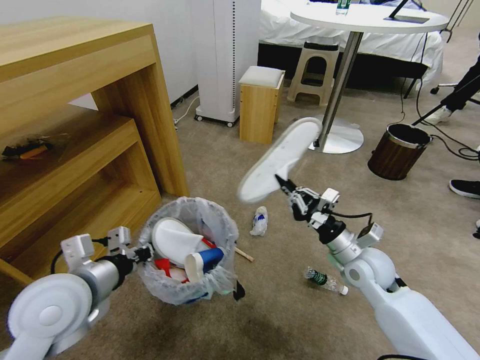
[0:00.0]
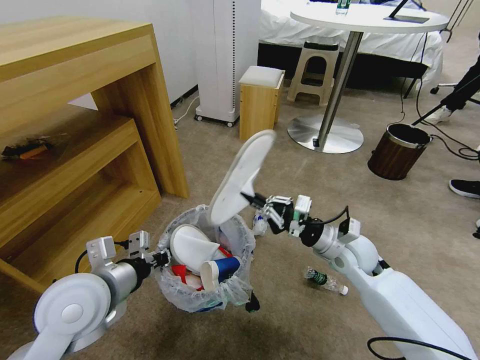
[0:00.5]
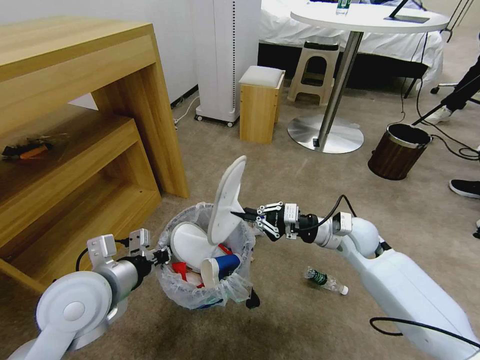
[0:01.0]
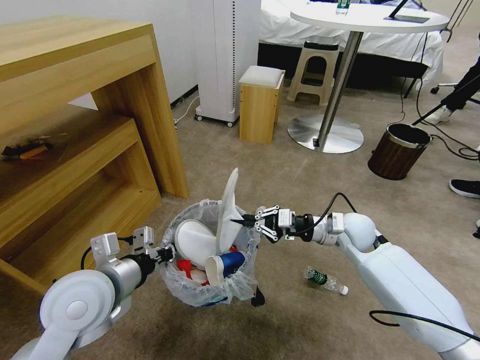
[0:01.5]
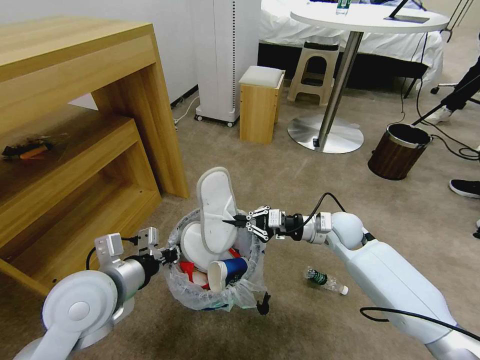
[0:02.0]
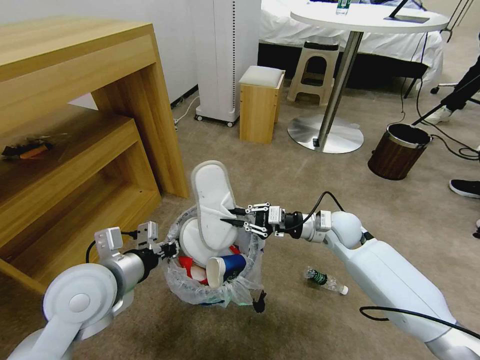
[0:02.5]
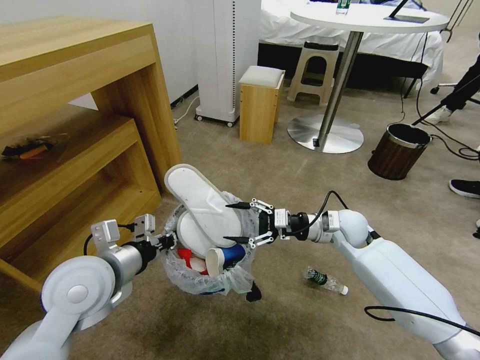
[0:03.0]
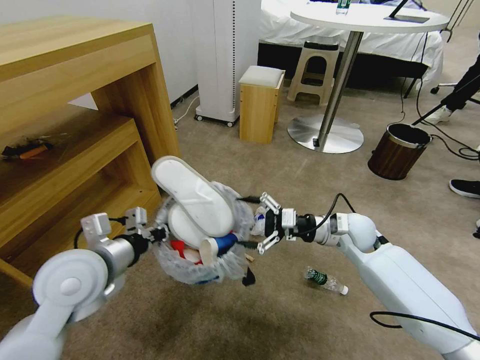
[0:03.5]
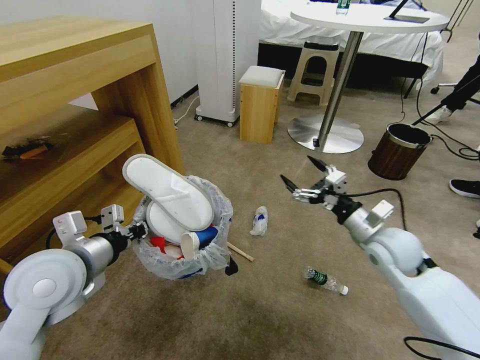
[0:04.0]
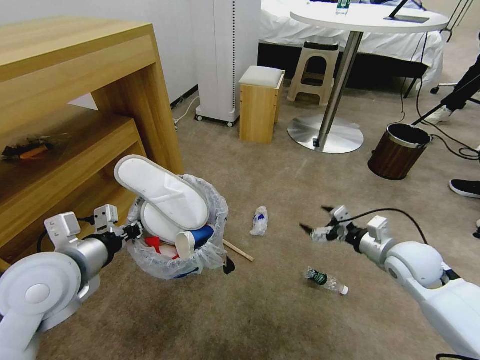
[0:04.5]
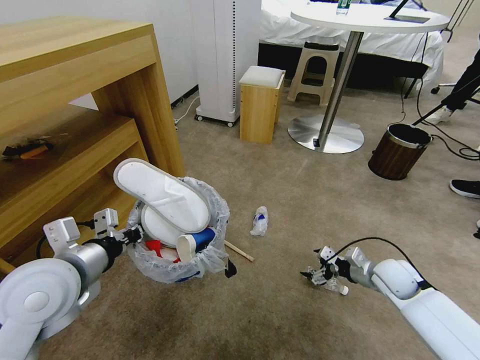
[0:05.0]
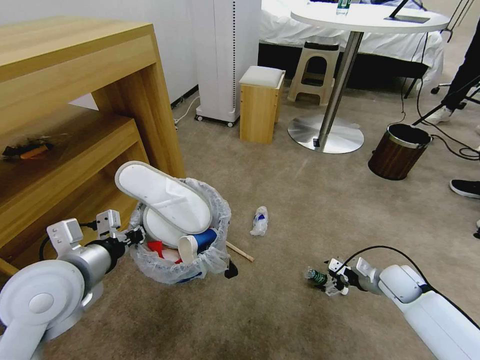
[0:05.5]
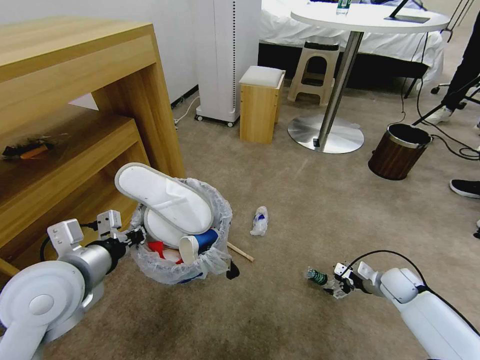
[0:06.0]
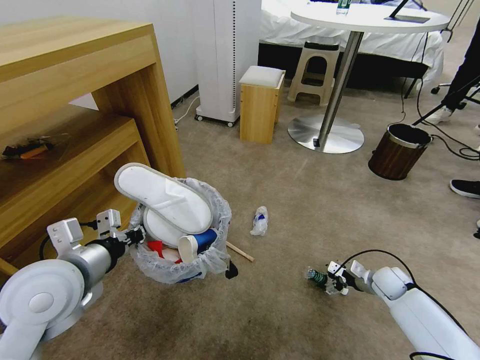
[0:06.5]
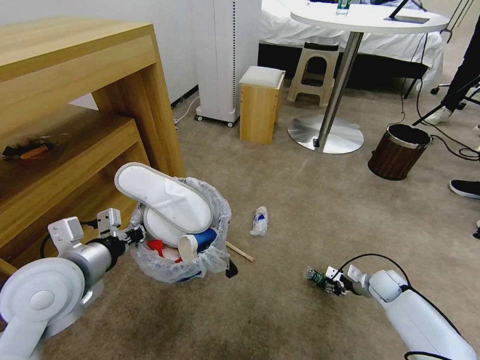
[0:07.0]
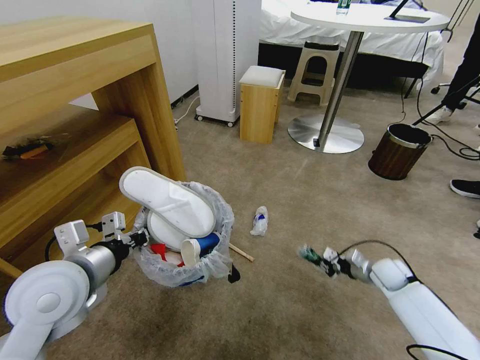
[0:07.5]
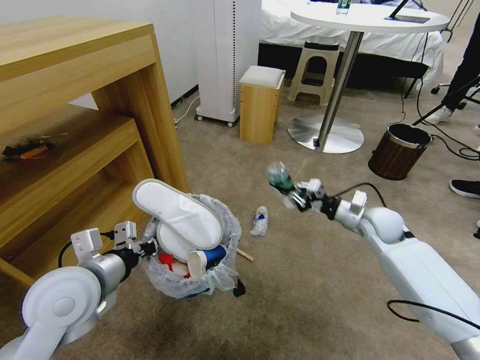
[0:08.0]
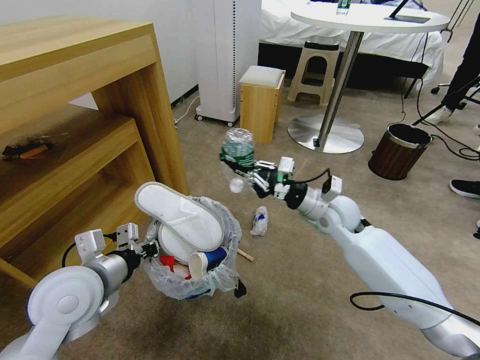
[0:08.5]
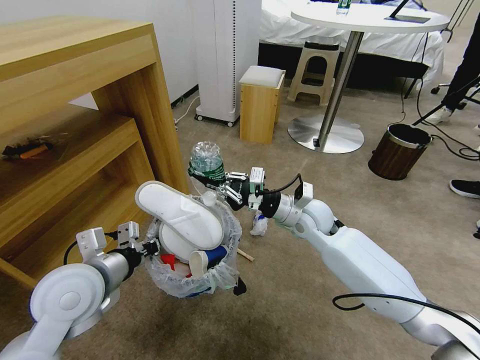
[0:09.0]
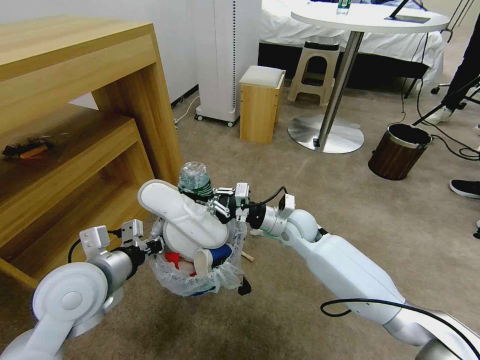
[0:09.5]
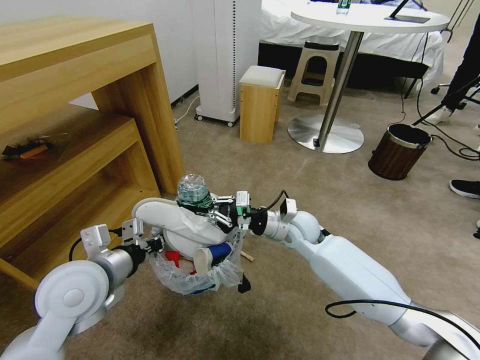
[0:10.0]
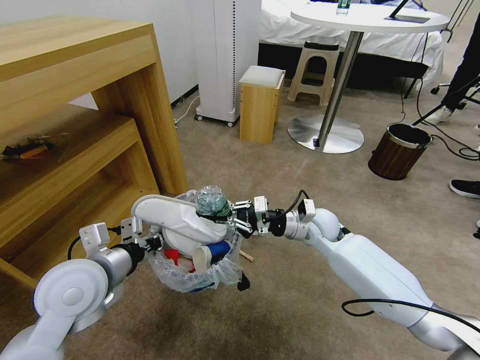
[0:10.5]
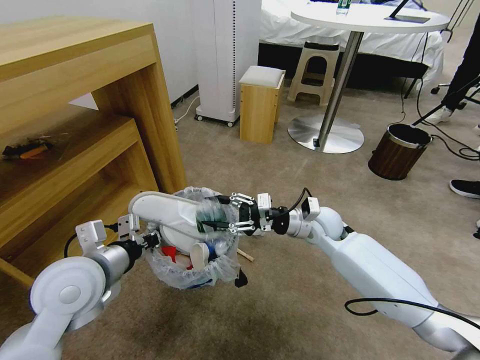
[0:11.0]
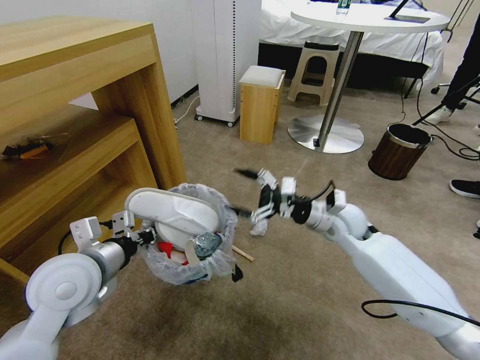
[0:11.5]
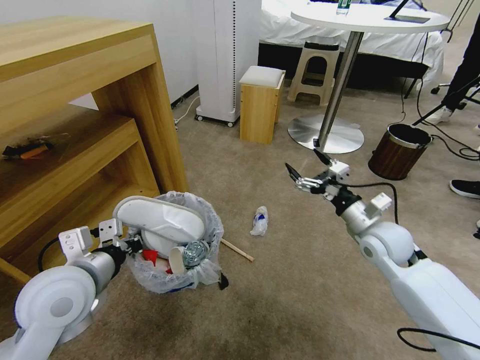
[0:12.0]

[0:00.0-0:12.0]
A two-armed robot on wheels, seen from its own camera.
Task of the whole recording: Pick up the trash bin and place the garbage on the floor into it.
0:00.0 to 0:02.0: The right gripper goes about 10 cm forward.
0:02.0 to 0:04.0: The left gripper moves some 5 cm. The right gripper travels backward and to the right by some 10 cm, and opens.
0:04.0 to 0:06.0: The right gripper shifts some 25 cm downward and to the right.
0:06.0 to 0:08.0: The right gripper goes some 20 cm upward, to the left and forward, and closes its fingers.
0:08.0 to 0:10.0: The right gripper shifts some 20 cm to the left.
0:10.0 to 0:12.0: The right gripper is displaced to the right by roughly 15 cm, and opens its fingers.

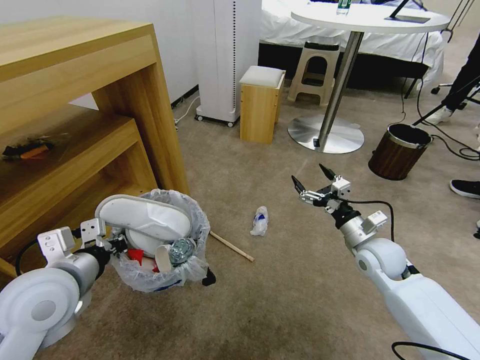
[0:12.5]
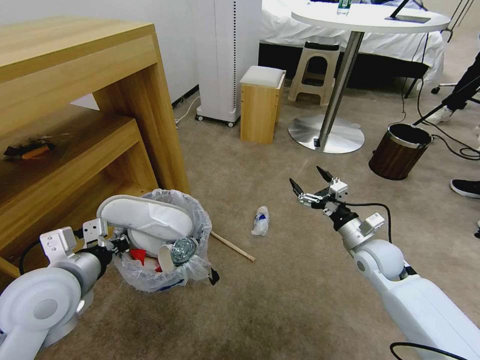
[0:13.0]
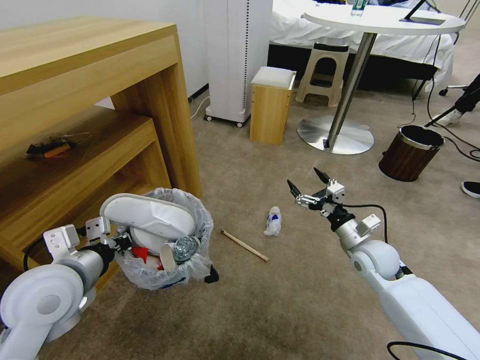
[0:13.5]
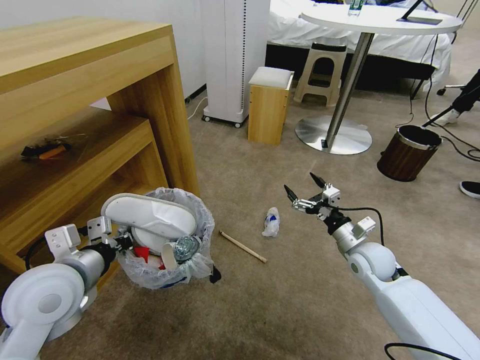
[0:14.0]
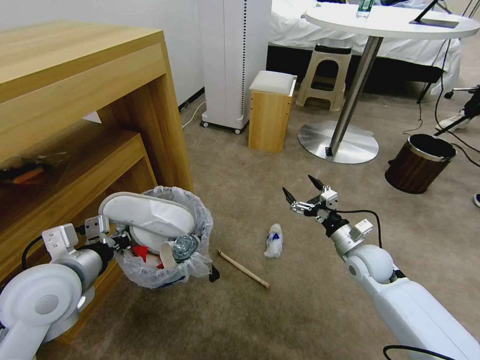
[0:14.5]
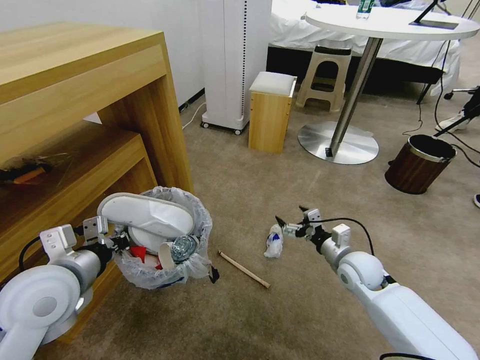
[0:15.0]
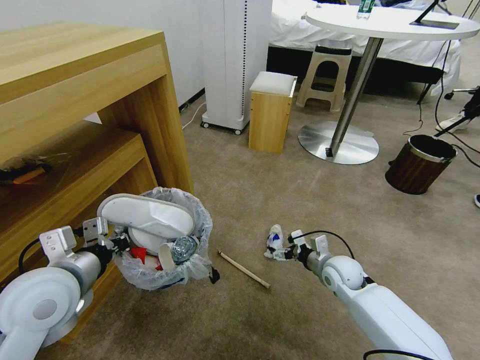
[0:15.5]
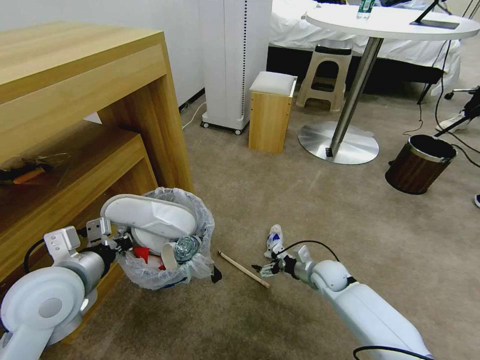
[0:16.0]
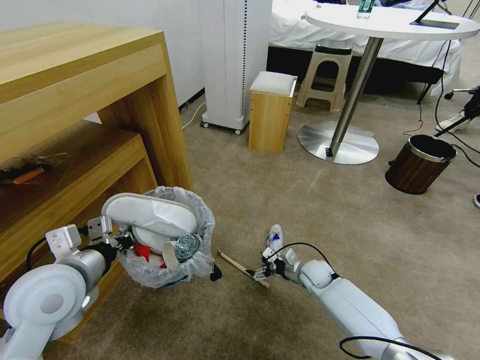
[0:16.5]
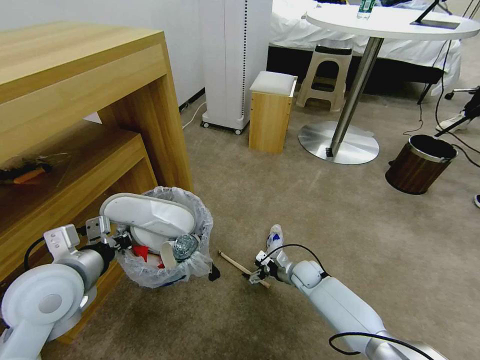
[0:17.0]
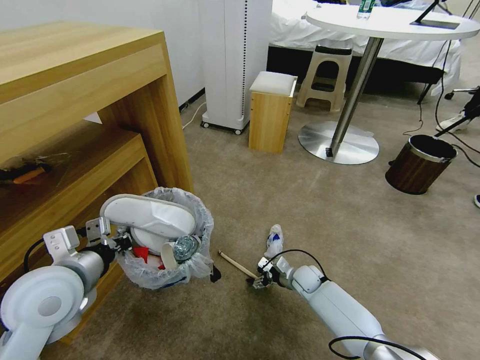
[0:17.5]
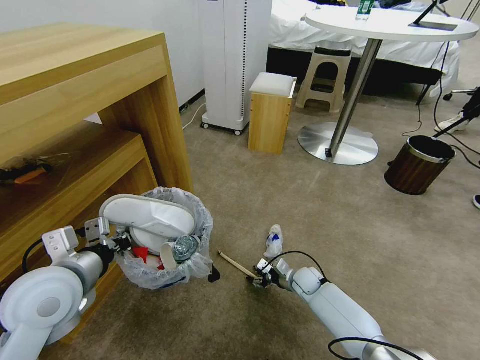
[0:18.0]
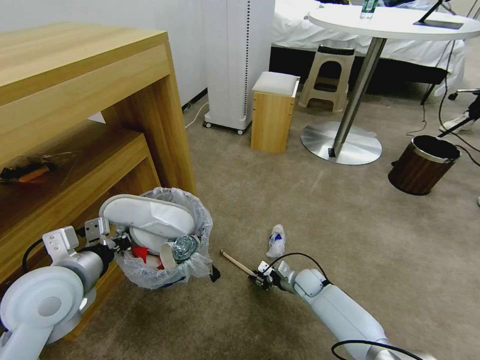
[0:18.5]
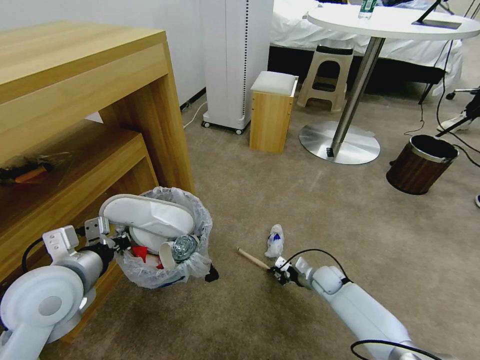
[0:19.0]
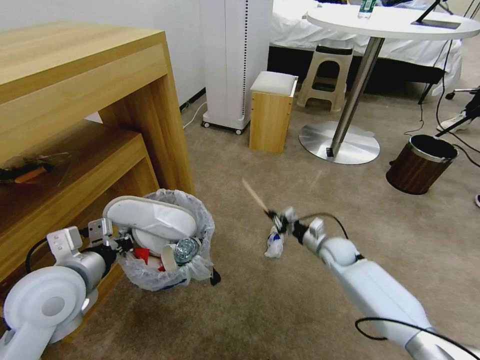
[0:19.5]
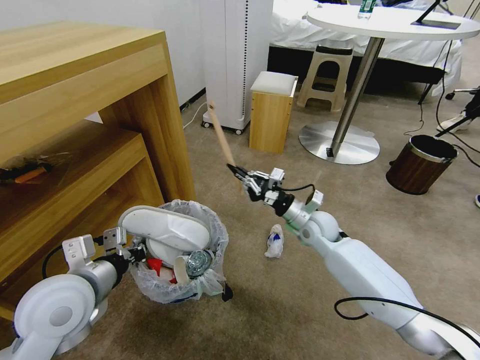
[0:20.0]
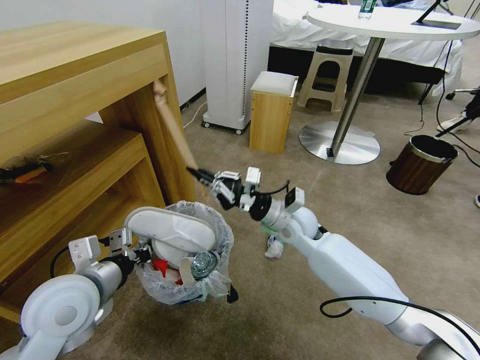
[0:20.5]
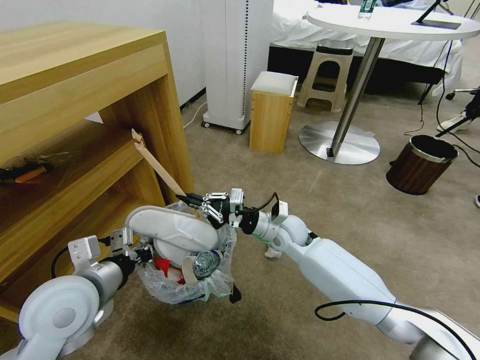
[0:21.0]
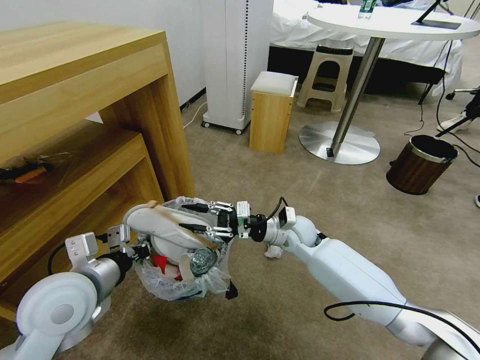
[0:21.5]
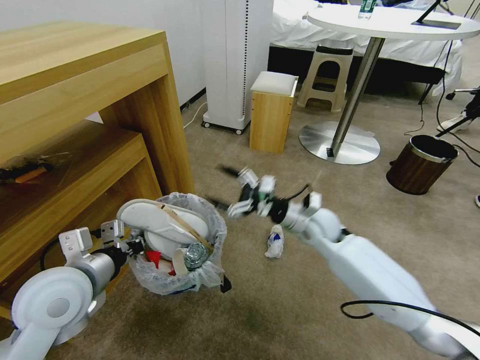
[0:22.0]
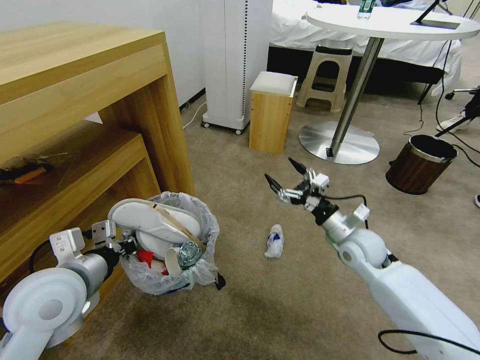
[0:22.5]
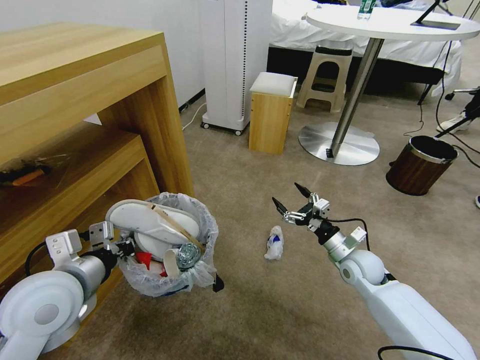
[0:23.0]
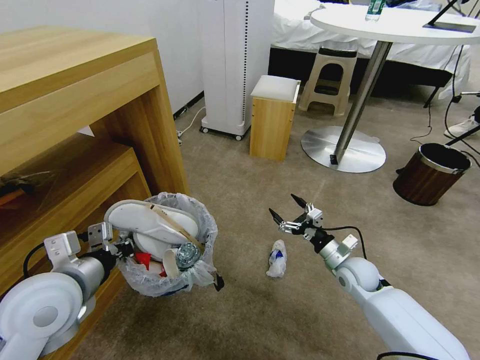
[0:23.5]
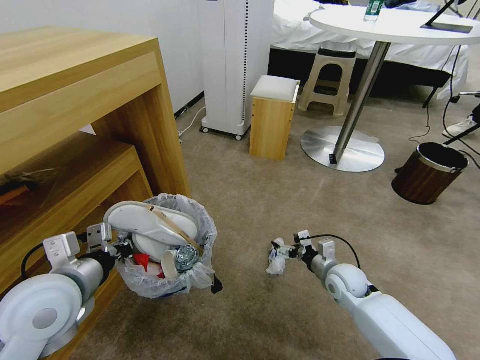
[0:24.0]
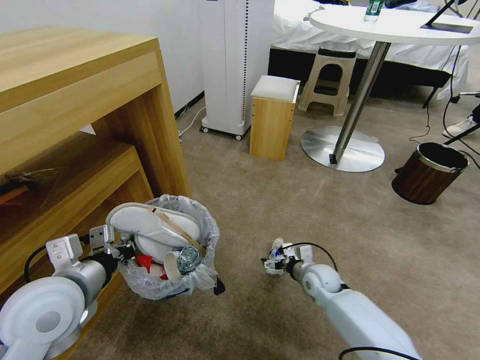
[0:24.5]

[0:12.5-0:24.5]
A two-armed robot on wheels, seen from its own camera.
Task of the whole recording: Pick up the trash bin and place the garbage on the floor into it.
0:14.5 to 0:16.5: The right gripper is displaced downward and to the left by about 15 cm.
0:16.5 to 0:18.5: The right gripper closes its fingers.
0:18.5 to 0:20.5: The right gripper is displaced upward by some 25 cm.
0:20.5 to 0:22.5: The right gripper is displaced to the right by roughly 15 cm, and opens up.
0:22.5 to 0:24.5: The right gripper travels downward by about 15 cm.

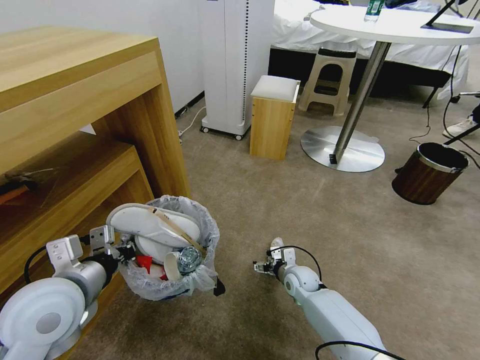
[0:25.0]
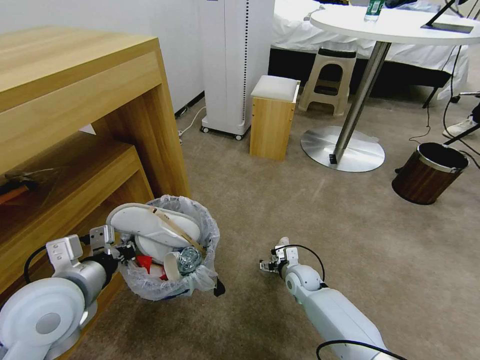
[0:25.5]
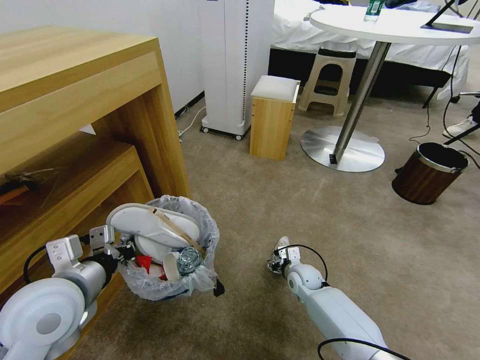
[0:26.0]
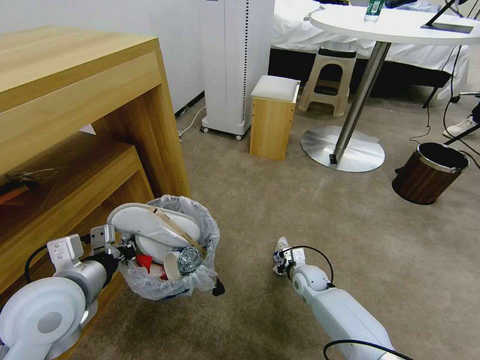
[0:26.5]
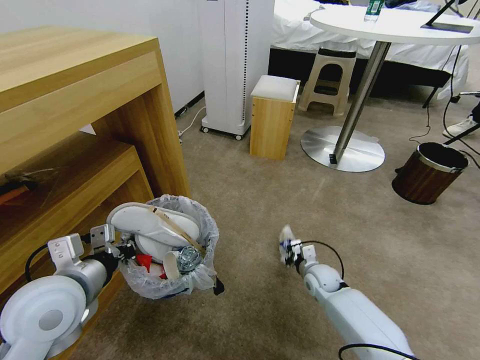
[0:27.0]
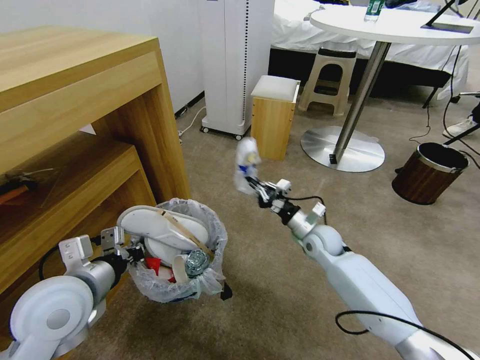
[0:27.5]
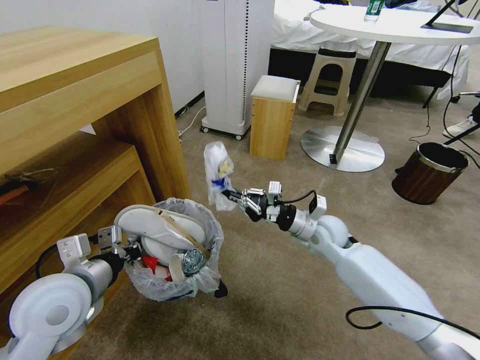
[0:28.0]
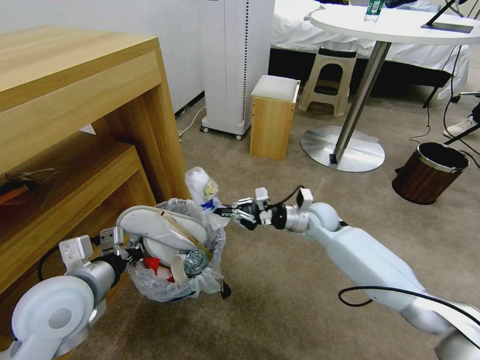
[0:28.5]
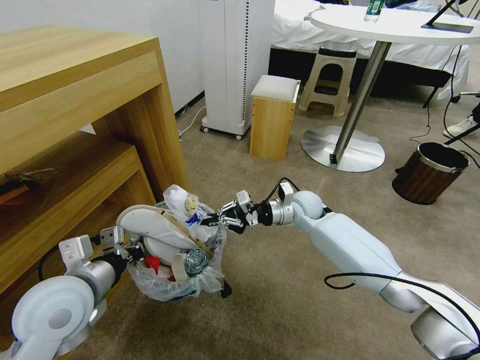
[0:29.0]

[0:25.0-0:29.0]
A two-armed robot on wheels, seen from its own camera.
Task of the whole recording: Pick up the trash bin and place the garbage on the floor into it.
0:25.0 to 0:27.0: The right gripper travels to the right by some 5 cm, and closes its fingers.
0:27.0 to 0:29.0: The right gripper moves upward and forward, some 25 cm.
